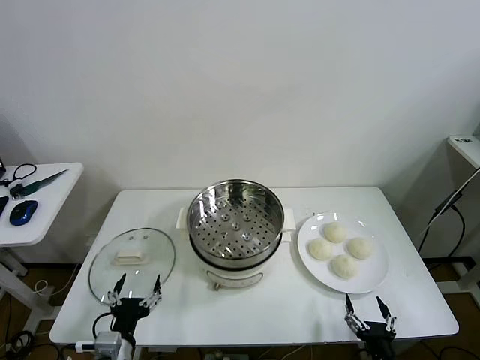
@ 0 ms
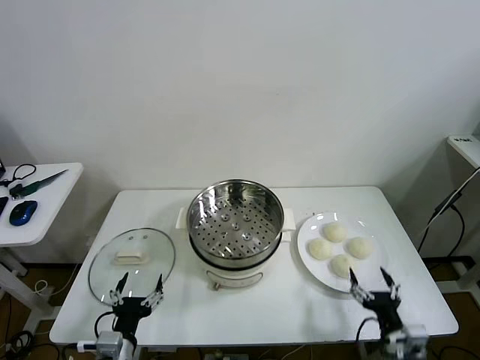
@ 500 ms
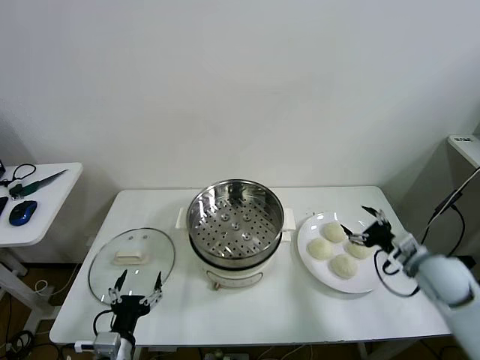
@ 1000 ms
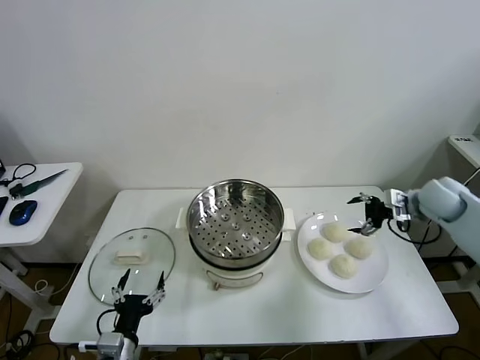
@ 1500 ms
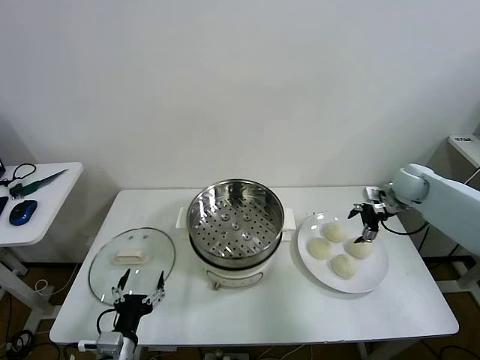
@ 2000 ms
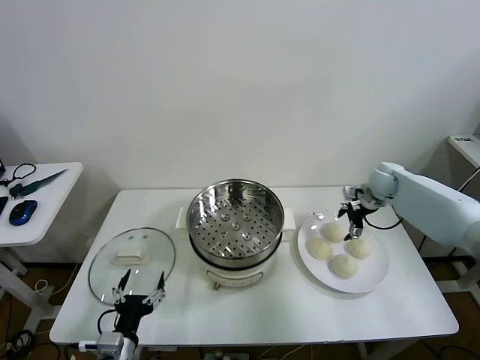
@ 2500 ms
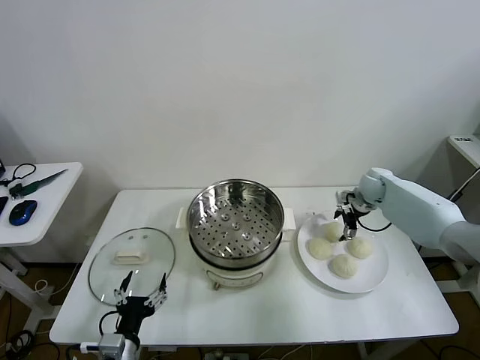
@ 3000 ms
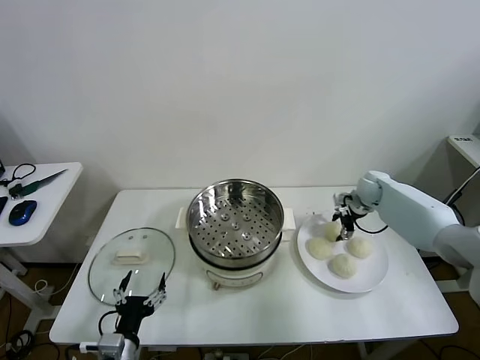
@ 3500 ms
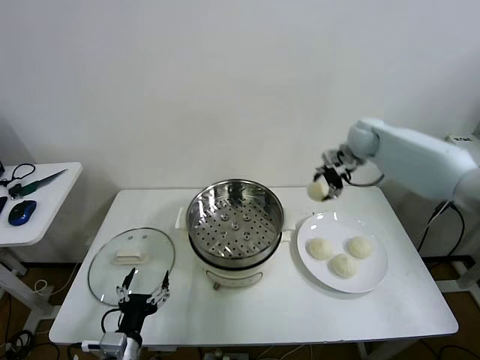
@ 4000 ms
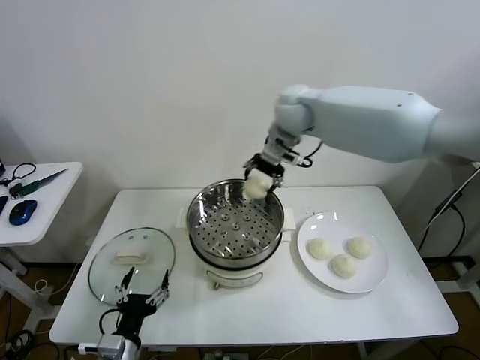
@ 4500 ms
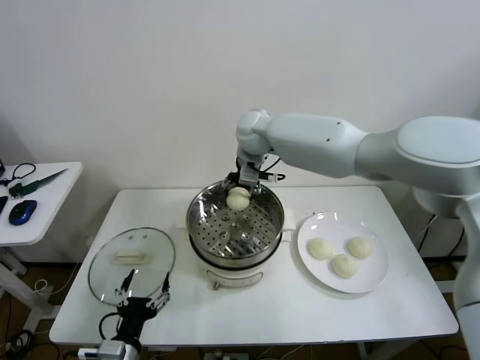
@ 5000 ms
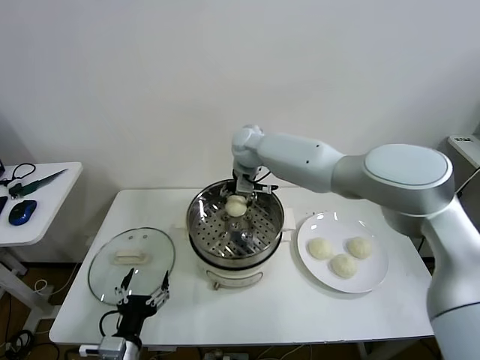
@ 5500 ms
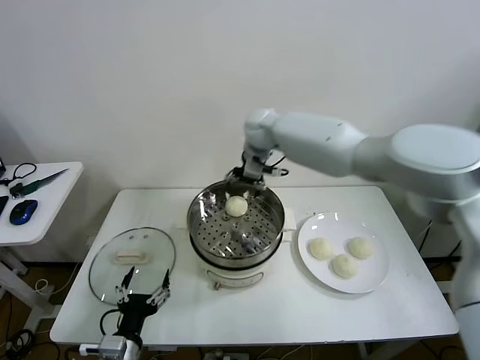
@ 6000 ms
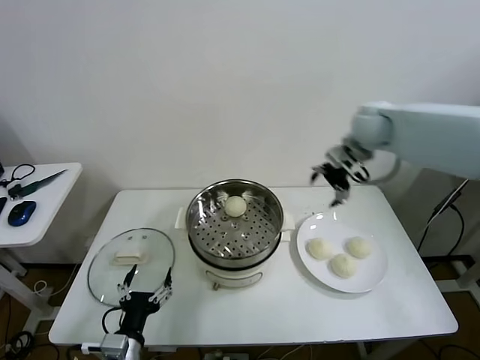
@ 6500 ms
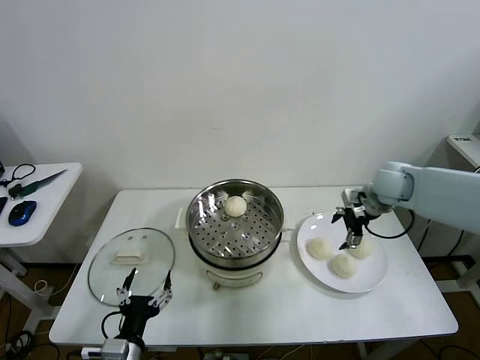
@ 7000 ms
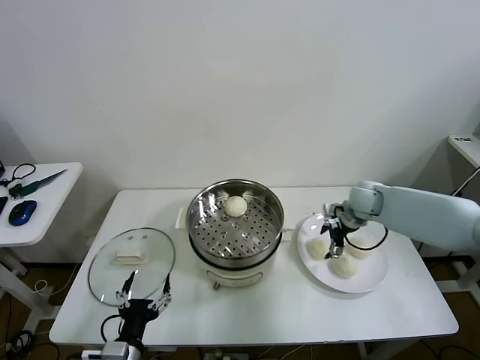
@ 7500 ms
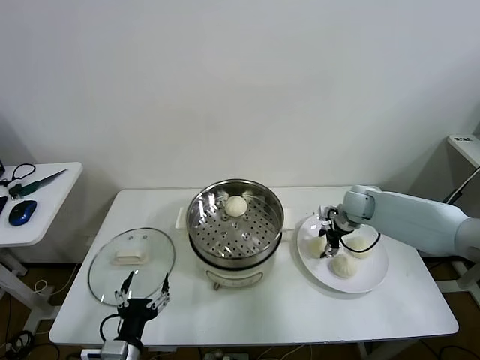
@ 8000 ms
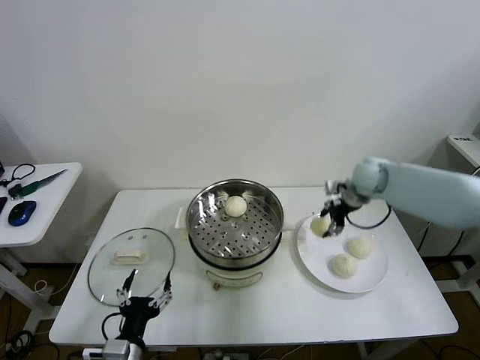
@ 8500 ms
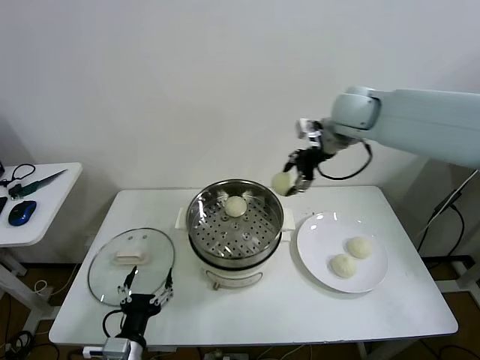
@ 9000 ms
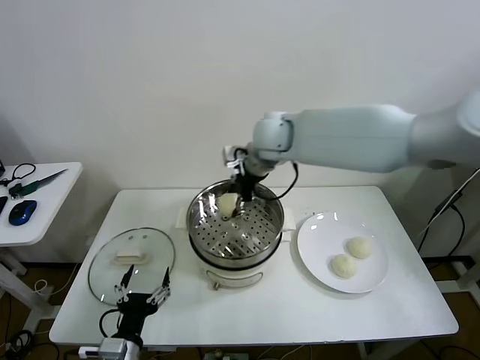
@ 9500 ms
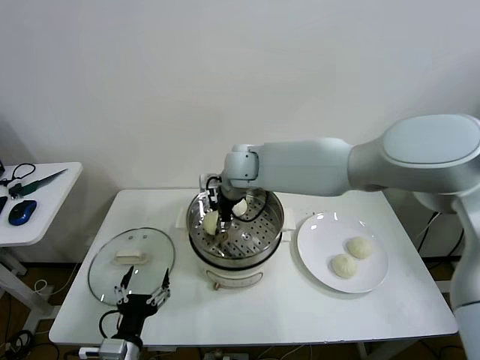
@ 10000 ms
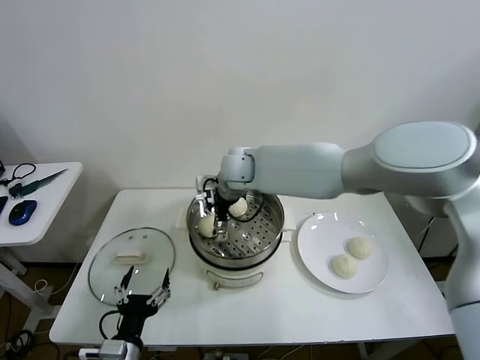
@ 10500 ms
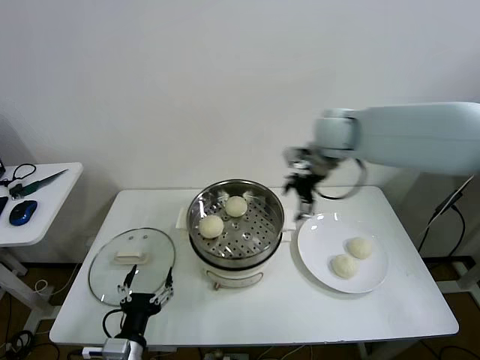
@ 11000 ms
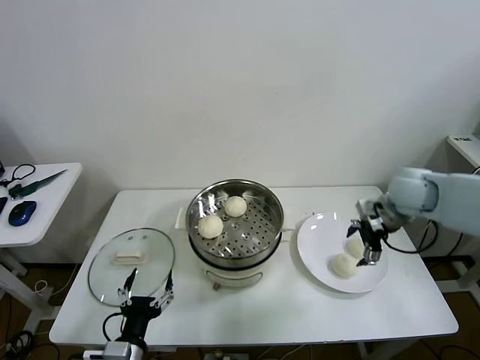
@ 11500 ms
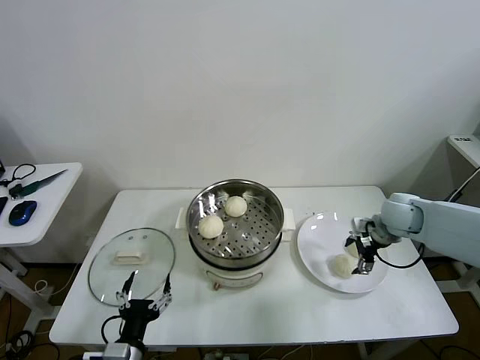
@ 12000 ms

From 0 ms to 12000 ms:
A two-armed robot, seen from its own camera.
Task of the whole recording: take steamed baozi put them in steamer then cover it.
Step, from 0 ms to 3000 ms: Grasp the baozi in the plate with right gripper.
Step, from 3500 ms to 5500 ms: Place the baozi on the steamer with right gripper.
Step, from 6000 ms to 8000 ms: Grasp the baozi in the plate with right gripper.
Step, from 8500 ms to 10000 ms: Place the baozi on the steamer with right gripper.
From 2000 ms to 4000 ms: The right gripper is displaced to the left, upward and forward by approximately 20 cm, and closes its fingers.
From 4000 ms to 6000 ms: The right gripper heads to the left, covering some 20 cm, and opens its fingers.
From 6000 ms to 8000 ms: The right gripper is displaced to the right and downward by some 30 cm, and closes its fingers.
From 8000 ms to 10000 ms: The right gripper is displaced to the left and upward by roughly 35 cm.
From 10000 ms to 12000 ms: The right gripper is displaced to the right by roughly 40 cm, and opens its fingers.

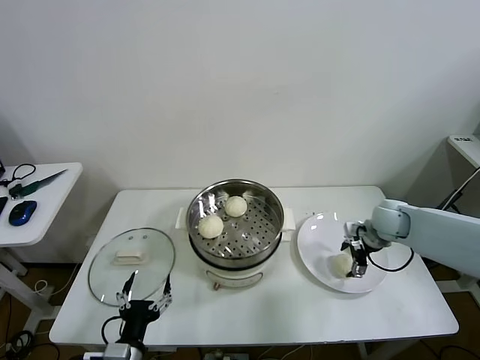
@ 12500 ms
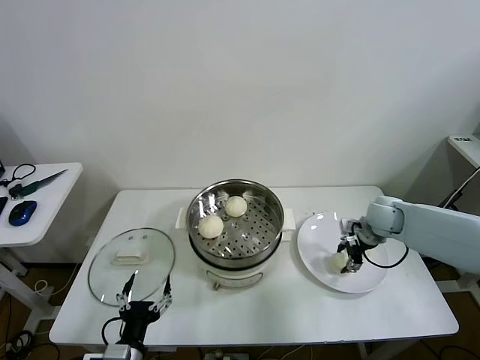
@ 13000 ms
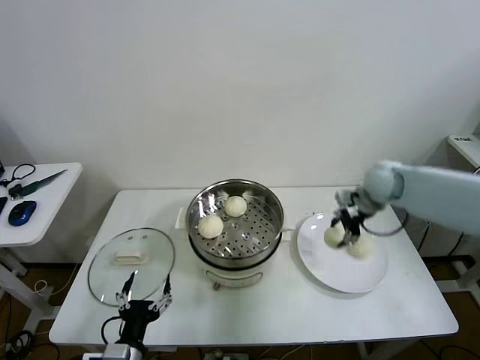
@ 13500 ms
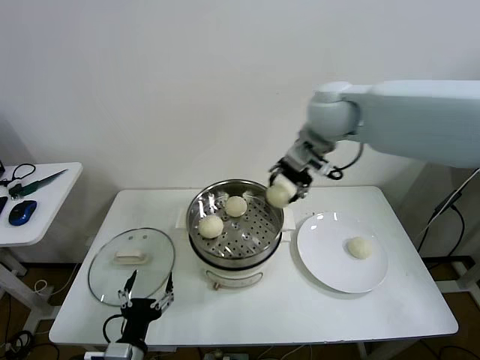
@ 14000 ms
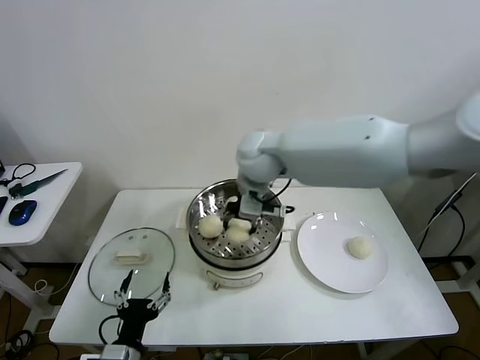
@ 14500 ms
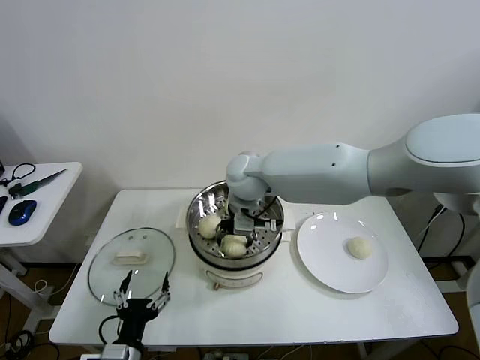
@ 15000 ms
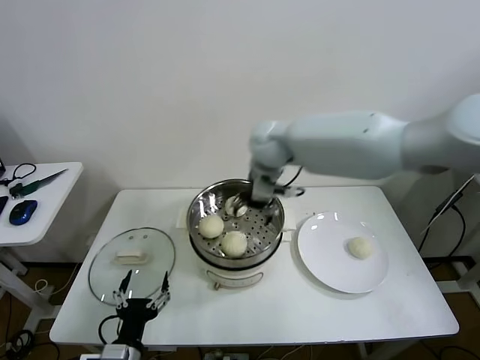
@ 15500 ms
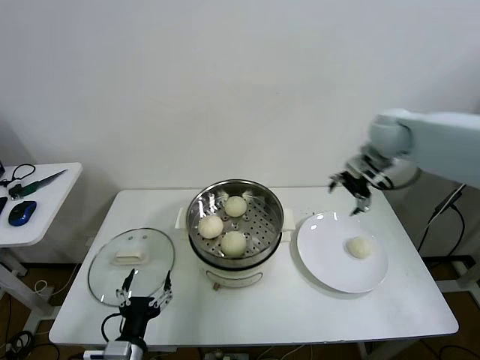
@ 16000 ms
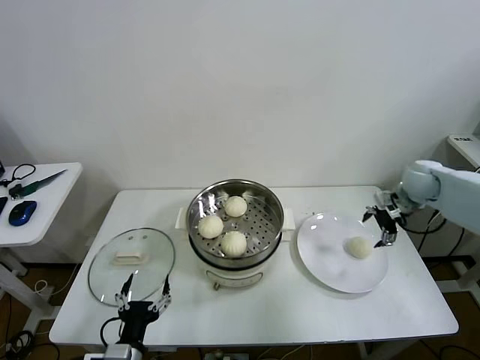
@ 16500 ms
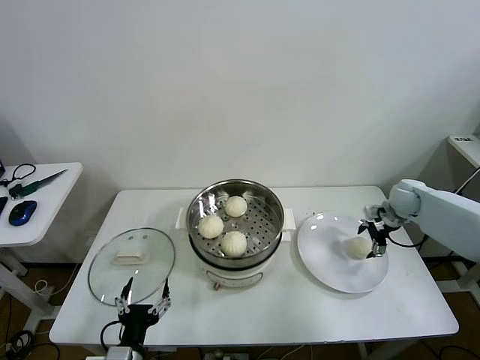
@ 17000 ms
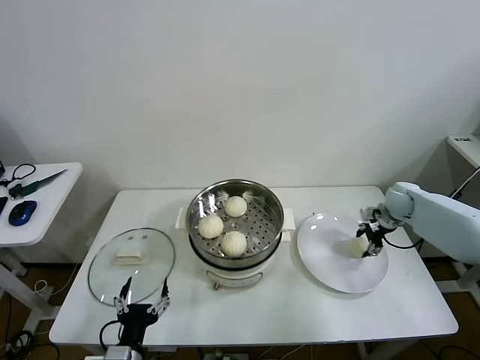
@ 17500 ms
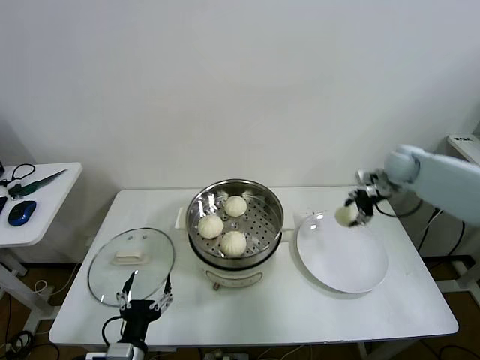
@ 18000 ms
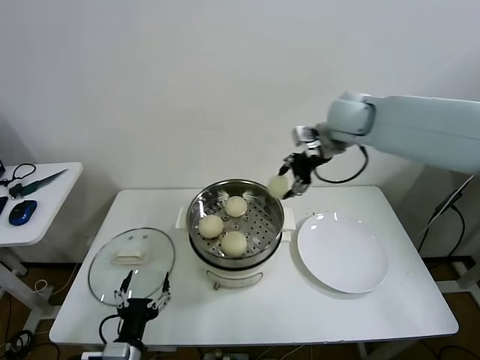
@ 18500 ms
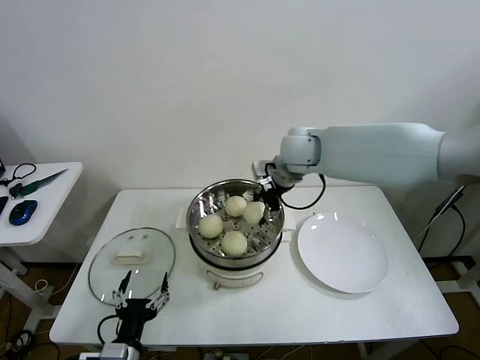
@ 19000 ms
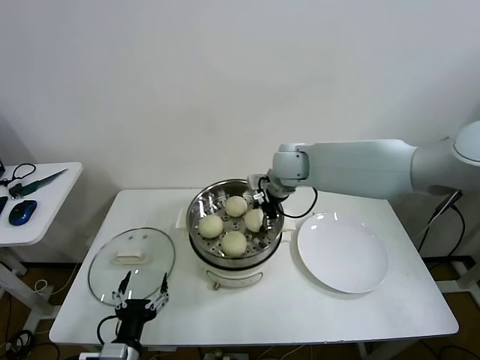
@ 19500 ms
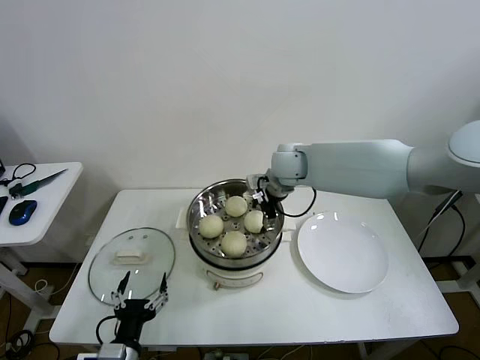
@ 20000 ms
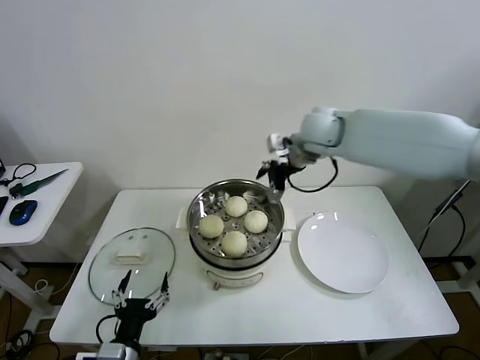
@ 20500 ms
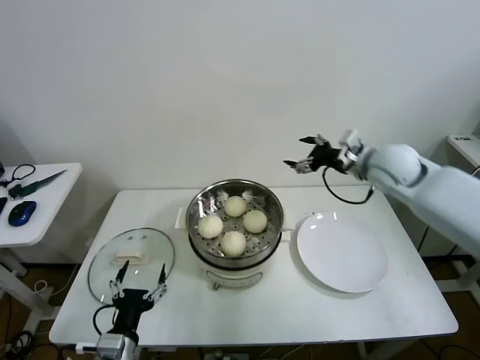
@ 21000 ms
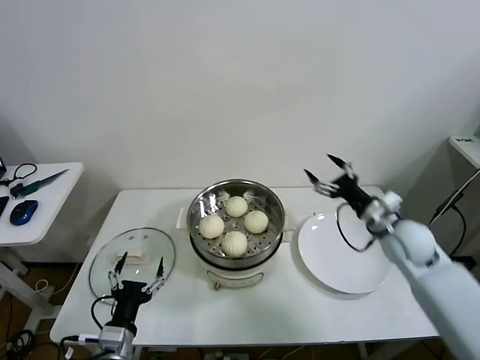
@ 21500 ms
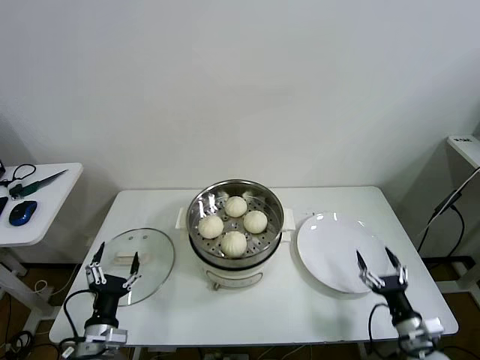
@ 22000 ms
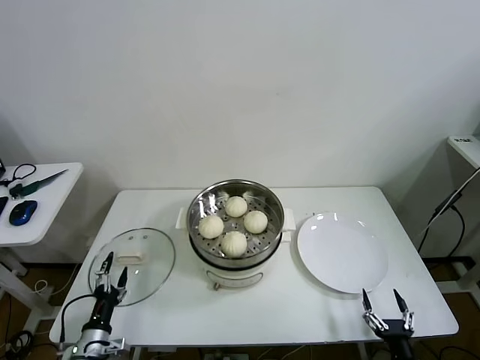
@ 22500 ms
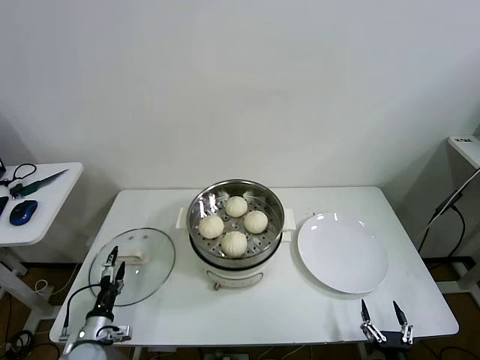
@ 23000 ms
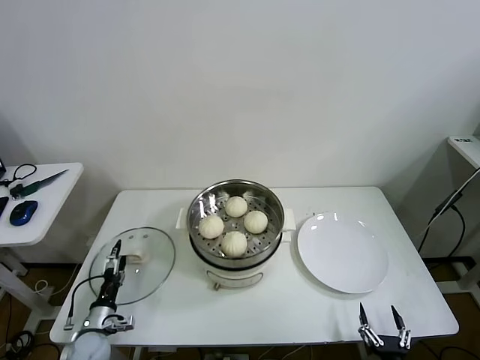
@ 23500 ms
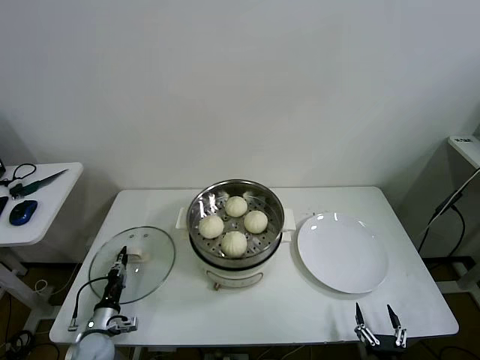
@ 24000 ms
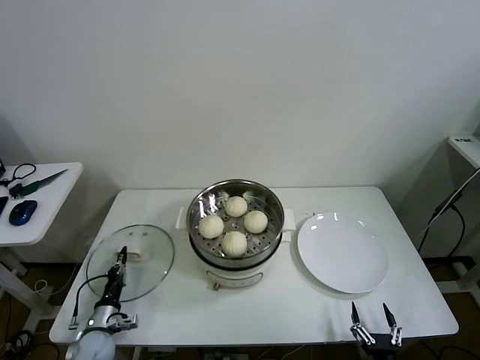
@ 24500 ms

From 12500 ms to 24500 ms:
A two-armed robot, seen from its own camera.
Task of the whole recording: take steamed baozi put them in steamer then cover it.
Step, from 13000 ms to 15000 ms: Place the baozi on the steamer with right gripper.
Step, from 15500 ms to 17500 ms: Grasp the baozi in the plate with right gripper.
Step, from 18000 ms to 19500 ms: Place the baozi on the steamer with right gripper.
Step, from 20500 ms to 24000 ms: Grasp the pot lid with left gripper.
From 12500 ms to 14500 ms: The right gripper goes some 40 cm to the left and upward, and closes its fingers.
From 14500 ms to 16500 ms: The right gripper shifts about 40 cm to the right, and opens up.
From 16500 ms to 18500 ms: The right gripper heads to the left and upward, covering approximately 30 cm, and closes.
From 18500 ms to 20500 ms: The right gripper moves roughly 10 cm downward and comes back, and opens up.
From 20500 ms to 22500 ms: The right gripper moves backward, downward and to the right, approximately 60 cm. The left gripper is displaced to the left, downward and forward by some 15 cm.
From 22500 ms to 24500 ms: The left gripper is displaced forward by some 5 cm, and closes up; the right gripper moves approximately 5 cm.

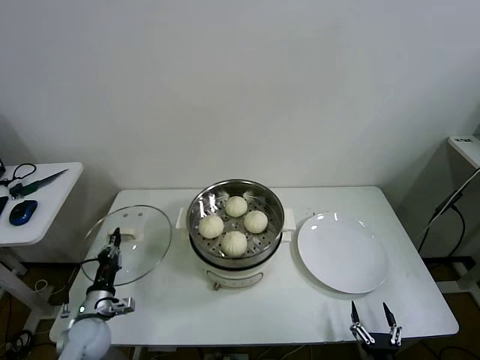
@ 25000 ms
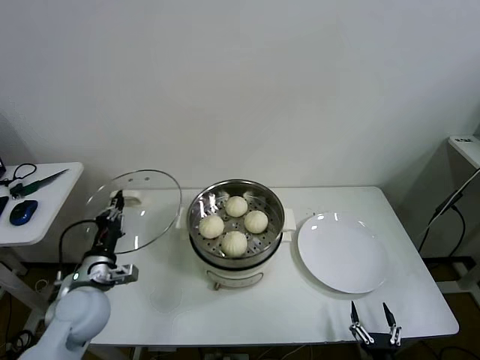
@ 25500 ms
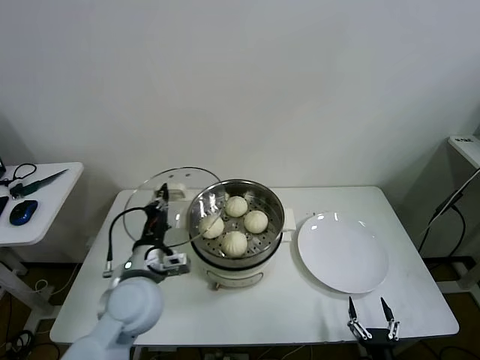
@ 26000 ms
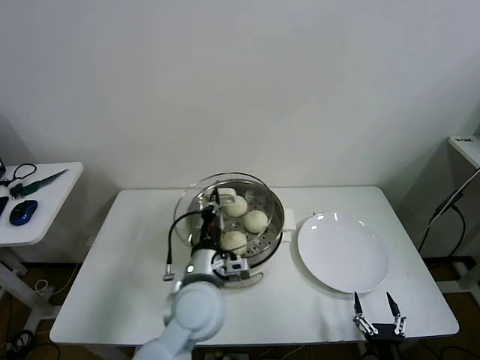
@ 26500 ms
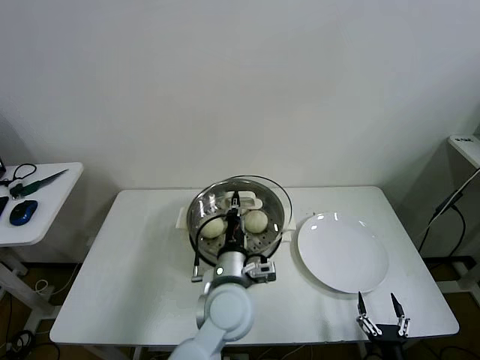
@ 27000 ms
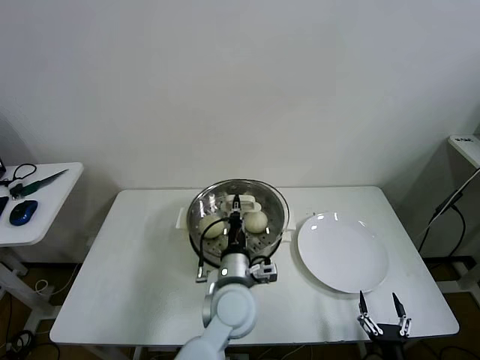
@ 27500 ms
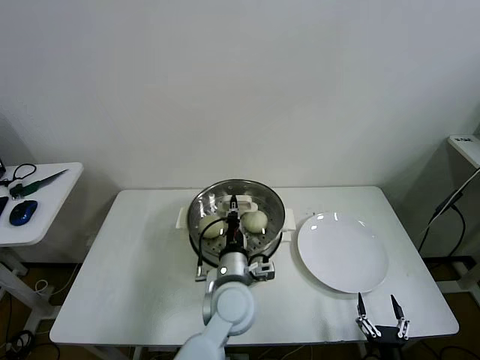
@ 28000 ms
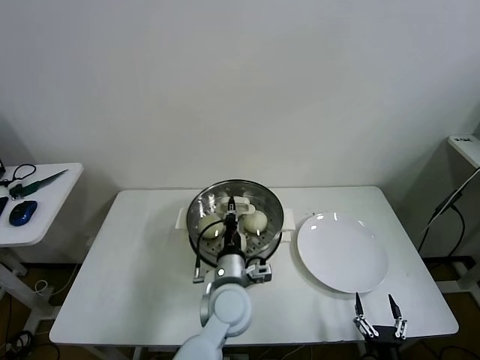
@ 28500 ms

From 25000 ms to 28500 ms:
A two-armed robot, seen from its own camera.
Task of the whole recording: take steamed baozi put them in steamer then cover it.
From 25000 ms to 27000 ms: The left gripper shifts some 40 cm to the right and upward.
From 27000 ms to 28500 ms: The grippers make only small movements.
